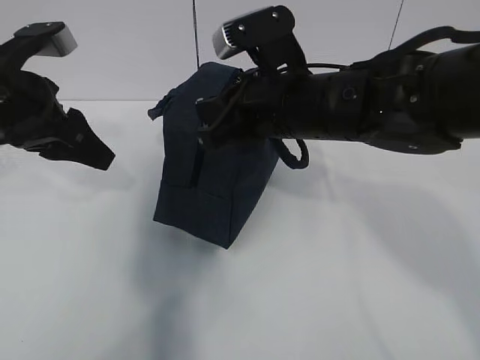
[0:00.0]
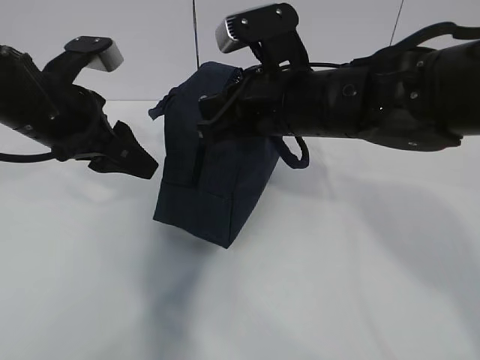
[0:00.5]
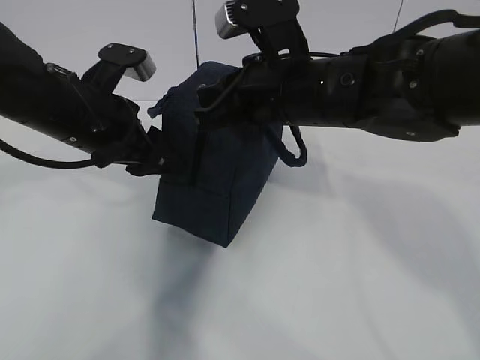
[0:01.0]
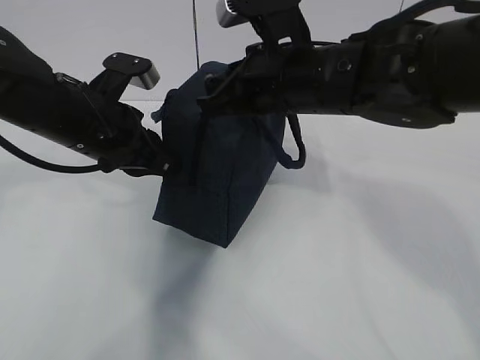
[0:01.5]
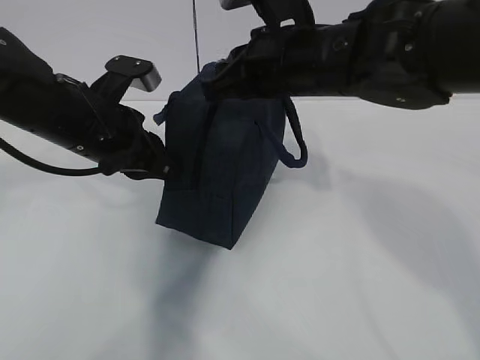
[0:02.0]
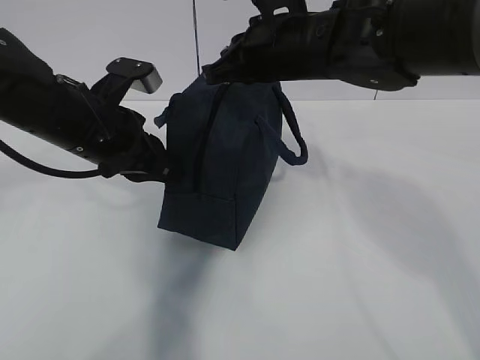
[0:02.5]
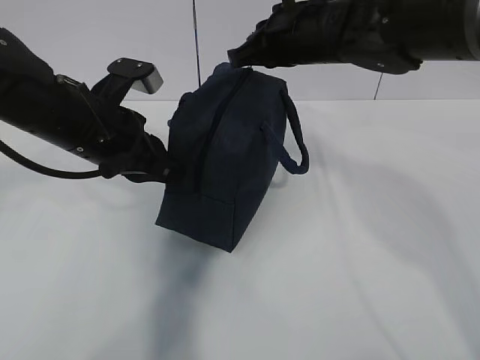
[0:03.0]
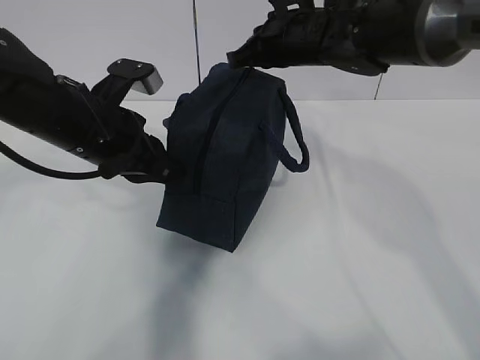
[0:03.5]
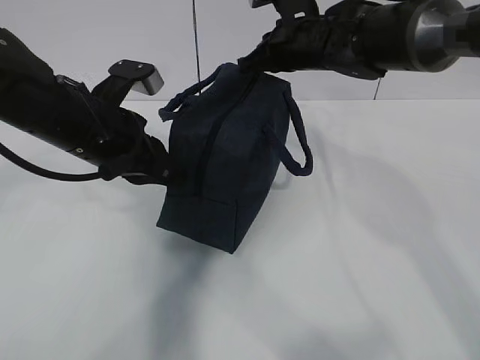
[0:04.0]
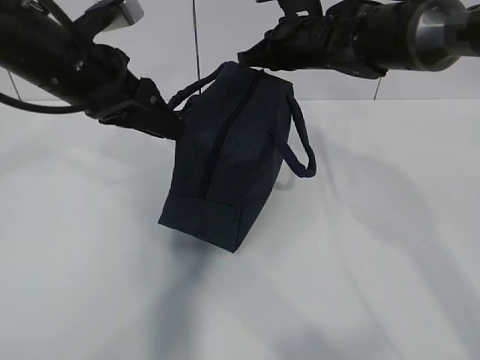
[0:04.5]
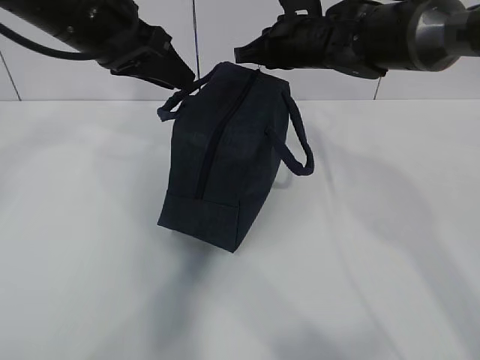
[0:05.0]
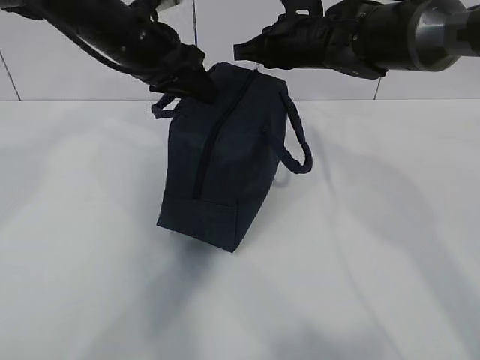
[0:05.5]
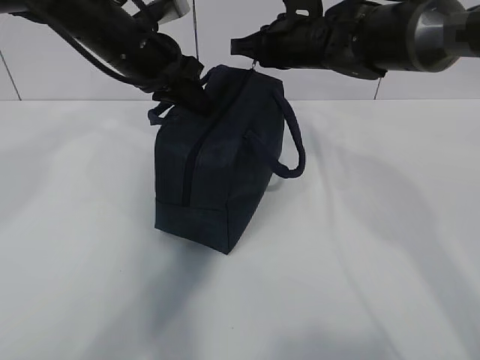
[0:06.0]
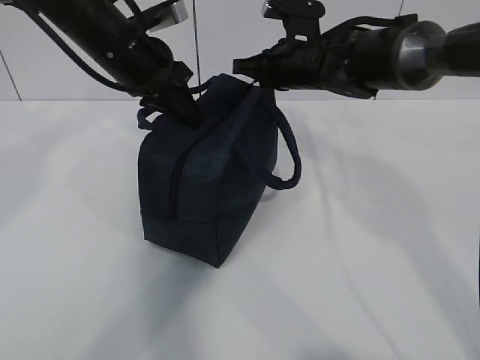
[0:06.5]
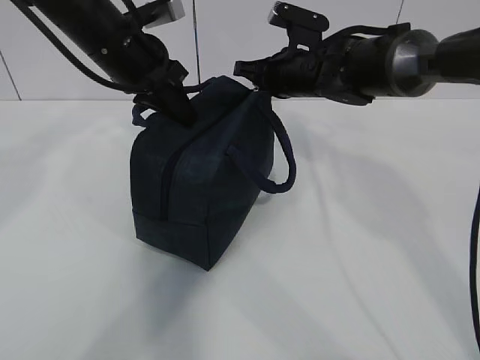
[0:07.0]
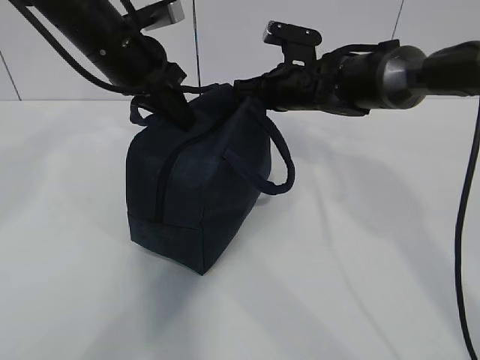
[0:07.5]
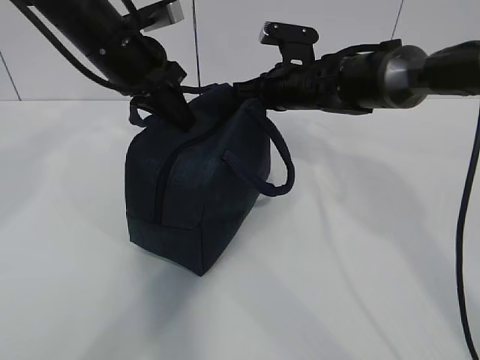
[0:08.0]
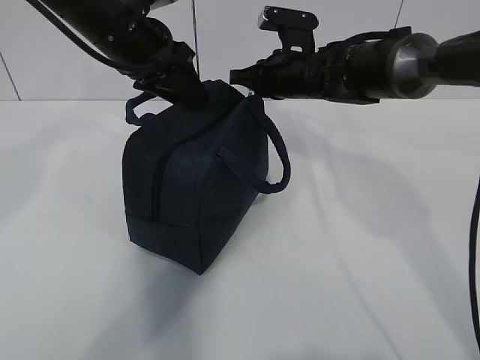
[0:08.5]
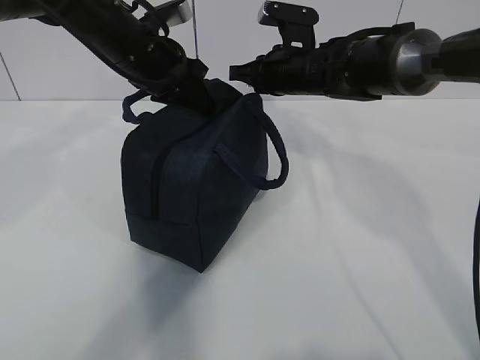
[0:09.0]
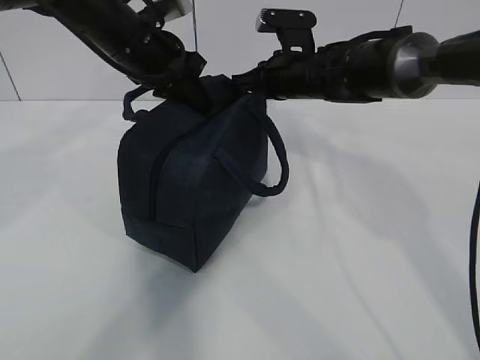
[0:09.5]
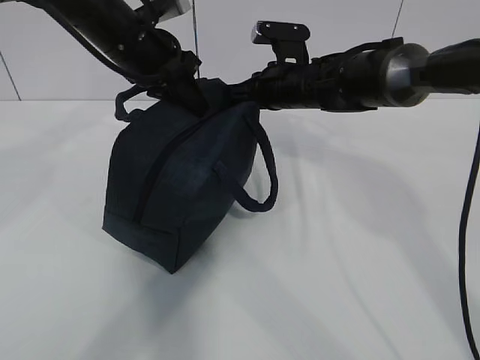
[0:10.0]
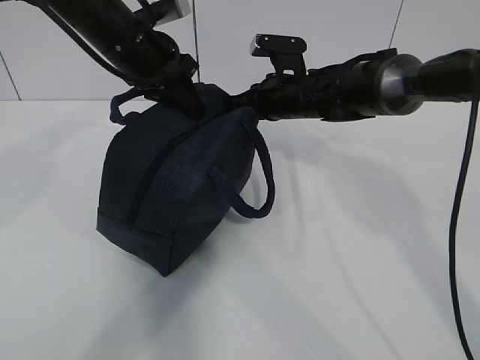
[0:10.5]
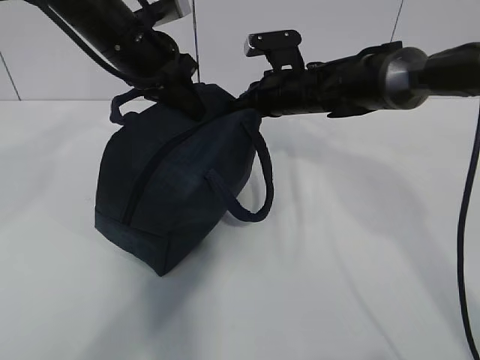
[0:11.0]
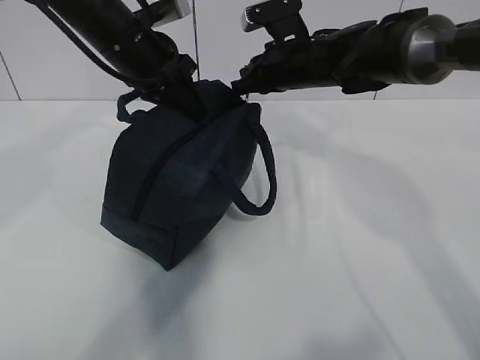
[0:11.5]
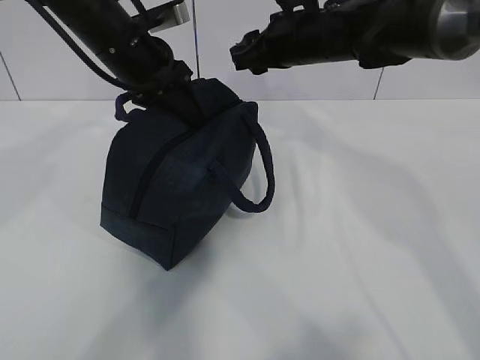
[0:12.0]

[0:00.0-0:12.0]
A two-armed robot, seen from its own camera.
0:00.0 to 0:02.0: The left gripper travels to the right and downward by roughly 10 cm, and closes.
0:02.0 to 0:04.0: The right gripper moves forward, some 15 cm.
0:04.0 to 0:06.0: The left gripper shifts approximately 10 cm forward, and opens and closes again.
0:06.0 to 0:08.0: The right gripper heads downward, covering some 5 cm.
0:08.0 to 0:10.0: The left gripper opens and closes again.
0:10.0 to 0:12.0: The right gripper shifts about 5 cm upward, and opens; the left gripper opens its fingers.

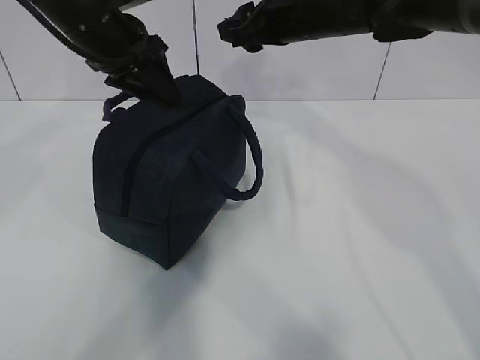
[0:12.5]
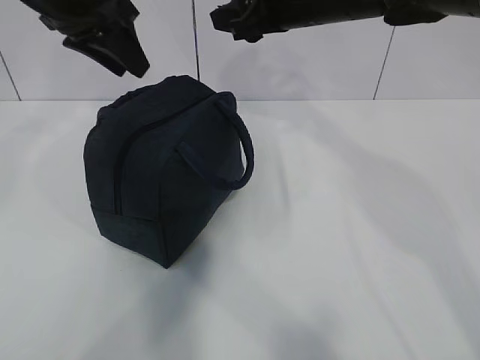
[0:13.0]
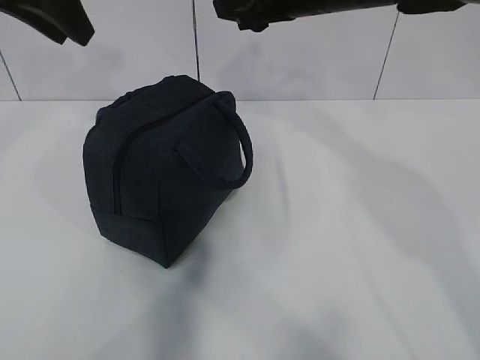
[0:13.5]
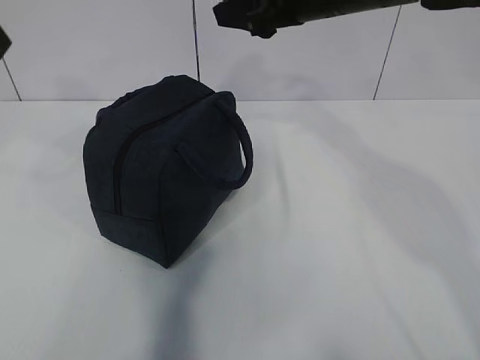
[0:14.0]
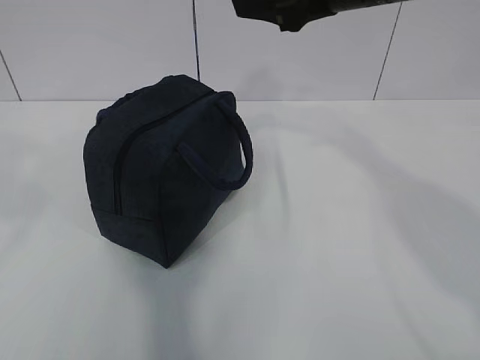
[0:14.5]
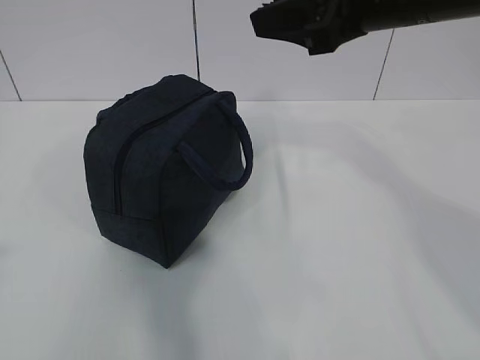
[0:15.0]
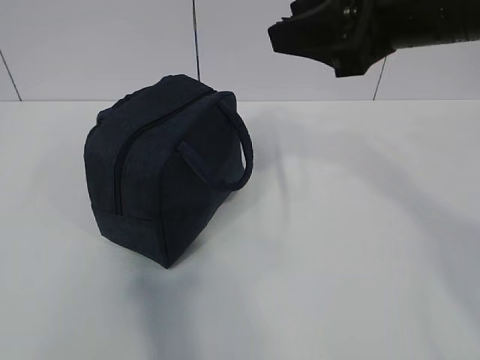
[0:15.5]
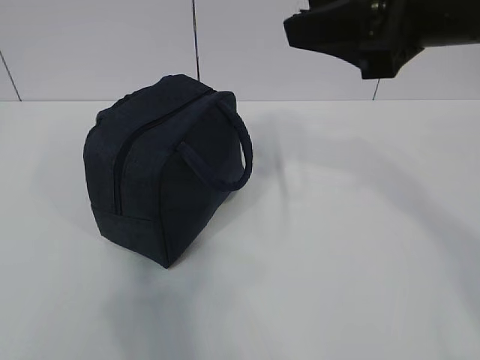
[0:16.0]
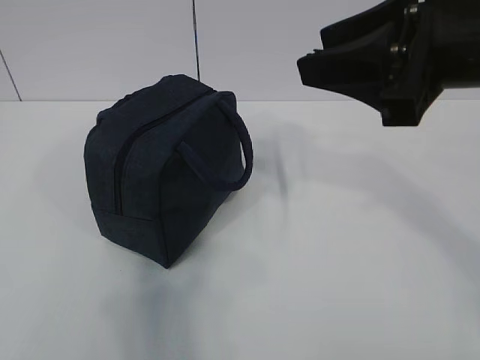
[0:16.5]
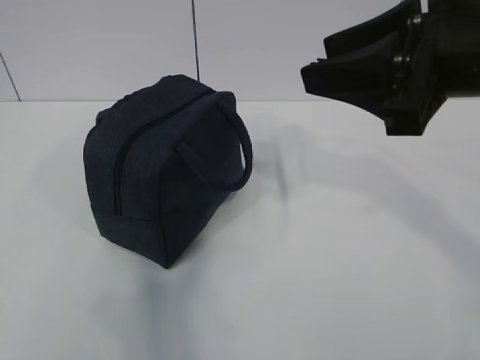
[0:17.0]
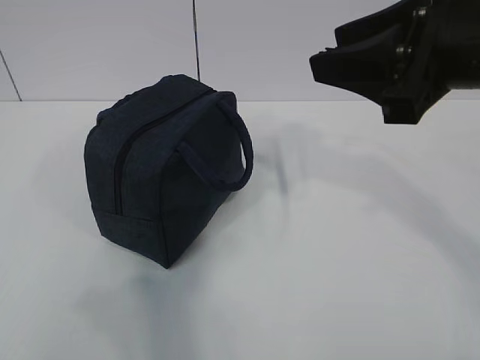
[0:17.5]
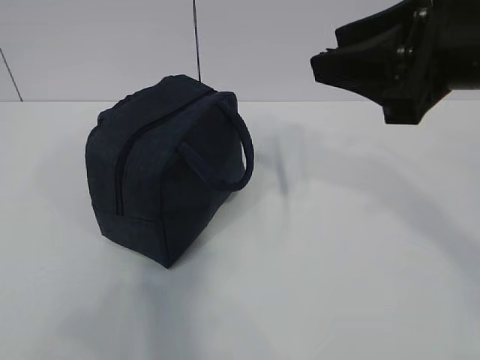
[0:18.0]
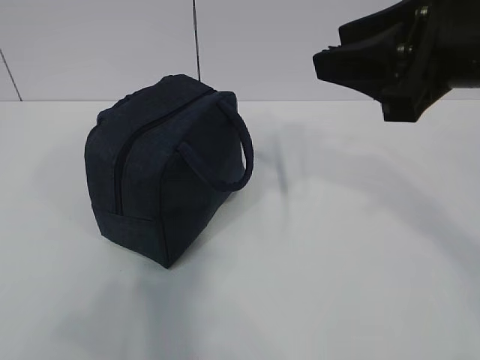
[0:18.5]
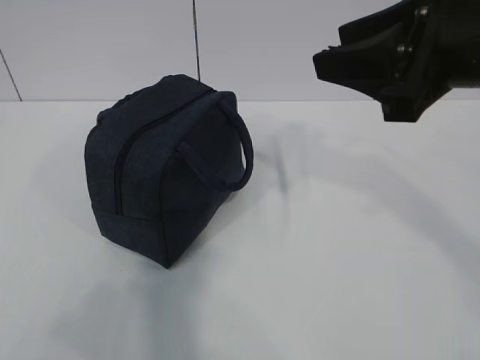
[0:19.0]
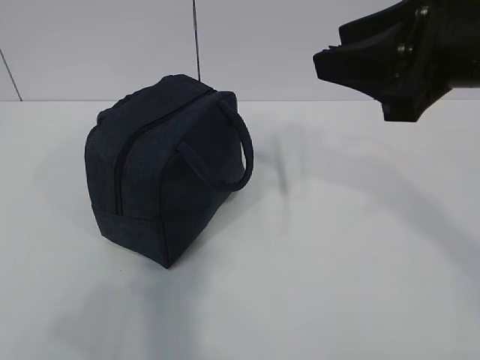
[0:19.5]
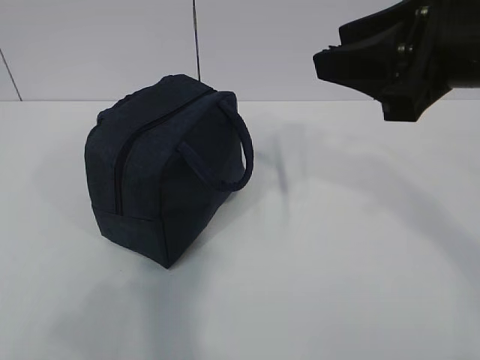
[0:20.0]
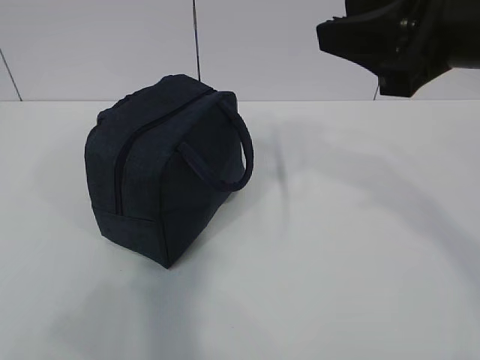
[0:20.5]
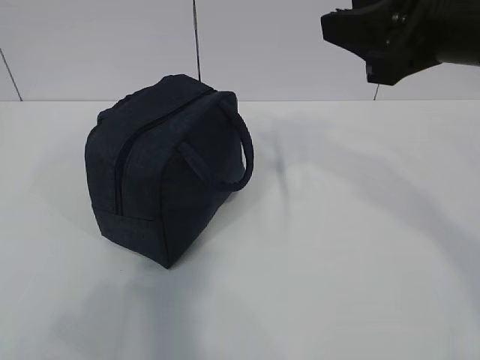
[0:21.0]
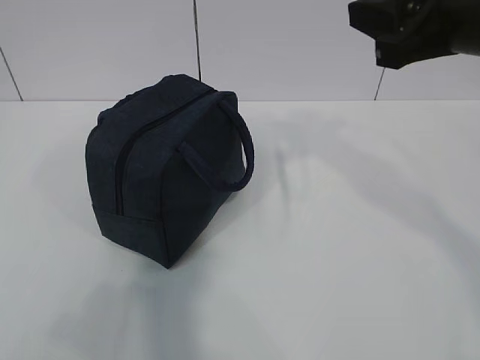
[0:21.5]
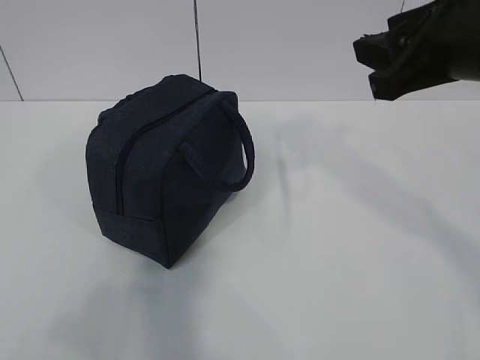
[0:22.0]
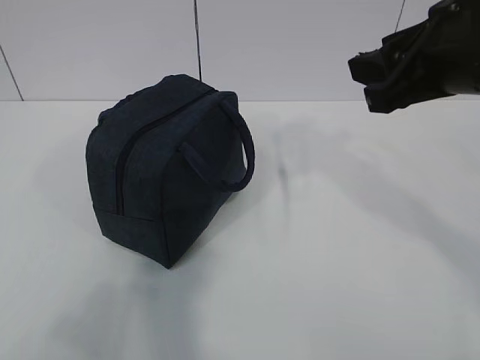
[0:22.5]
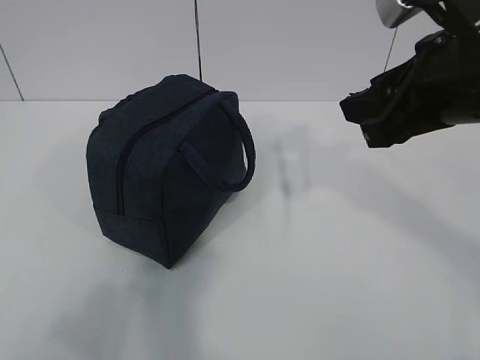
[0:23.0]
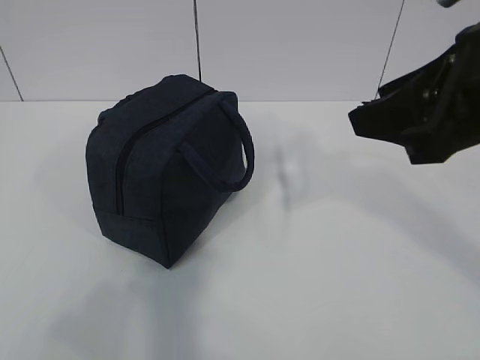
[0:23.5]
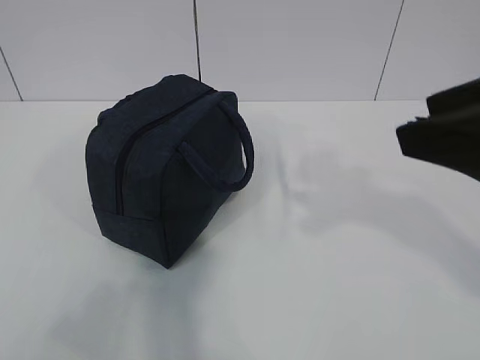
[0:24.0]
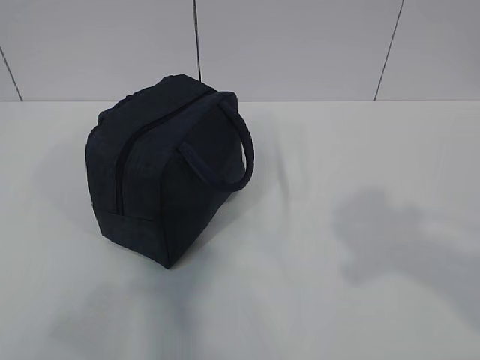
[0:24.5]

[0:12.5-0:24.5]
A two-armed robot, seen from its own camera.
0:12.5 to 0:14.5: The left gripper travels backward and upward by some 30 cm. The right gripper goes about 10 cm backward and upward.
0:14.5 to 0:16.5: The left gripper travels backward and downward by roughly 20 cm. Meanwhile the right gripper is displaced backward by about 10 cm.
0:18.5 to 0:20.5: There are only small adjustments of the grippers.
0:22.5 to 0:24.5: The right gripper goes approximately 15 cm backward.
